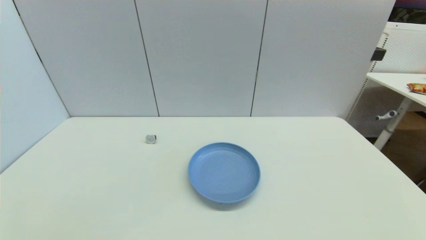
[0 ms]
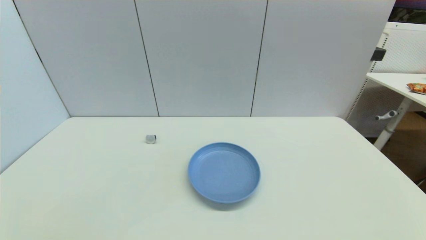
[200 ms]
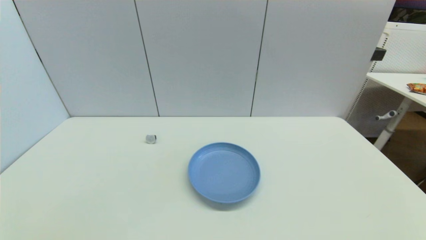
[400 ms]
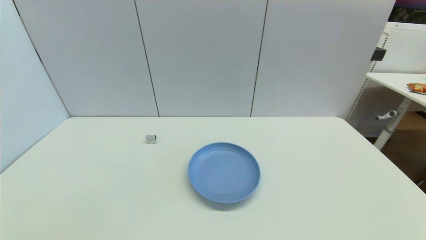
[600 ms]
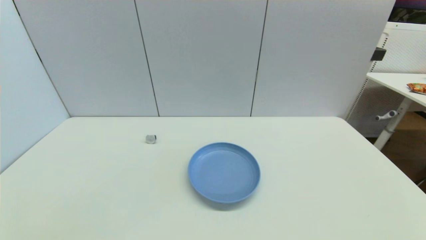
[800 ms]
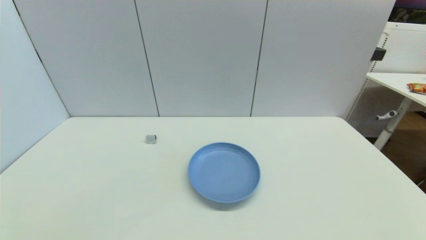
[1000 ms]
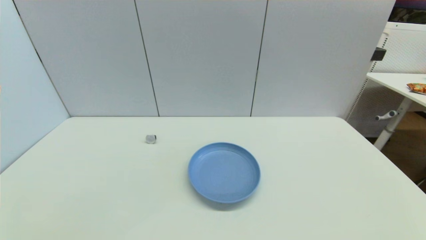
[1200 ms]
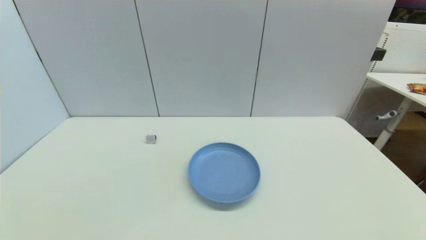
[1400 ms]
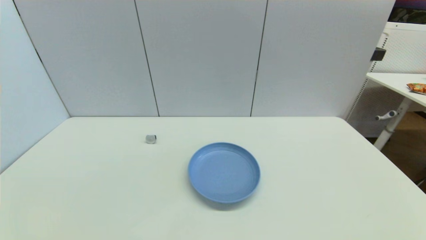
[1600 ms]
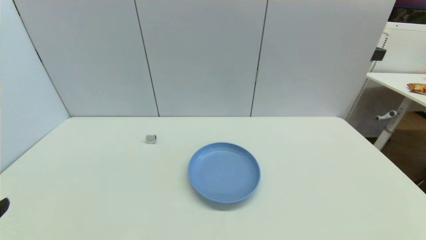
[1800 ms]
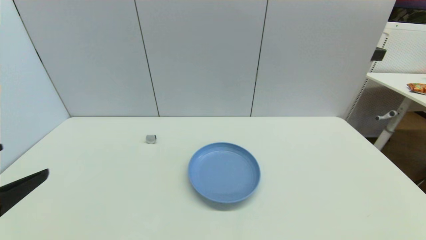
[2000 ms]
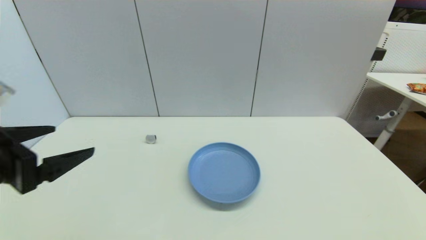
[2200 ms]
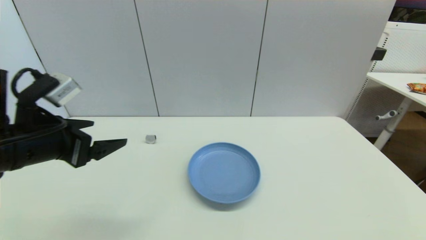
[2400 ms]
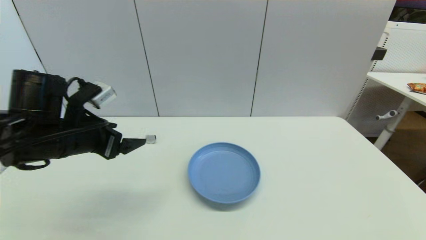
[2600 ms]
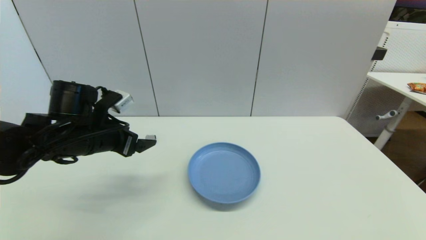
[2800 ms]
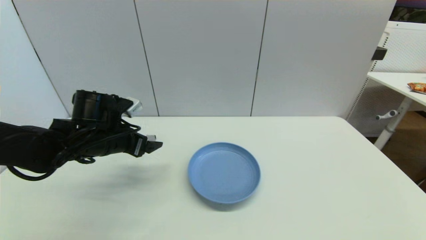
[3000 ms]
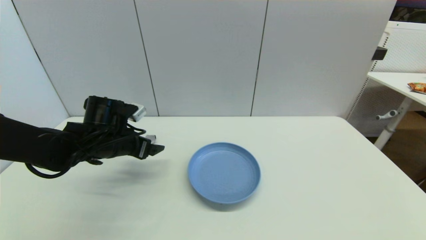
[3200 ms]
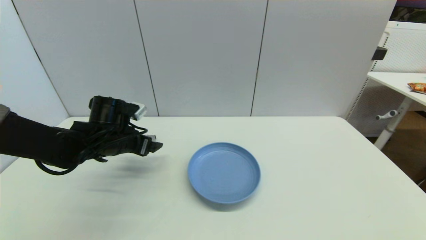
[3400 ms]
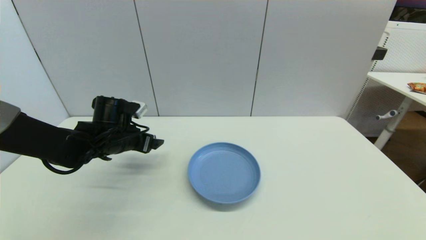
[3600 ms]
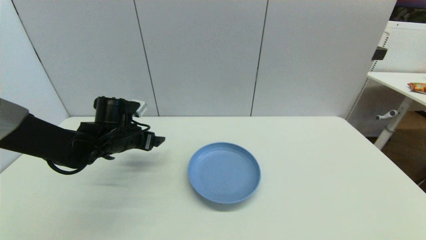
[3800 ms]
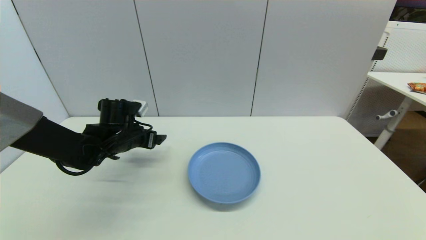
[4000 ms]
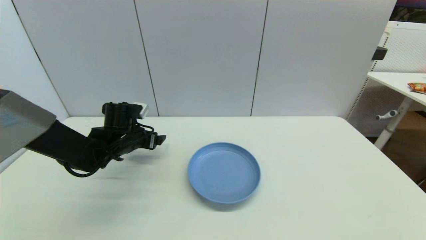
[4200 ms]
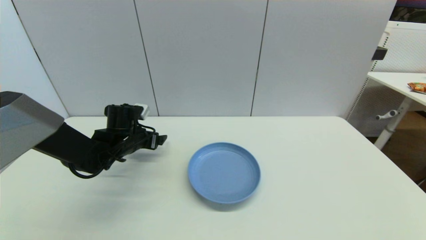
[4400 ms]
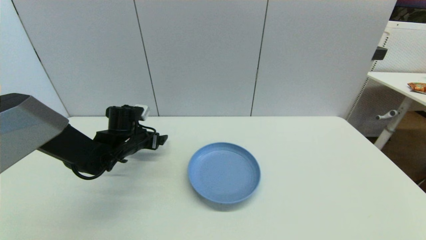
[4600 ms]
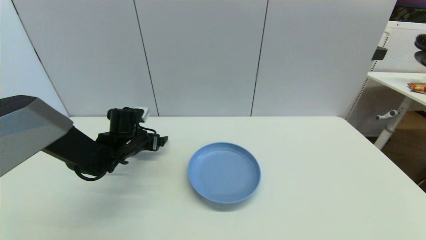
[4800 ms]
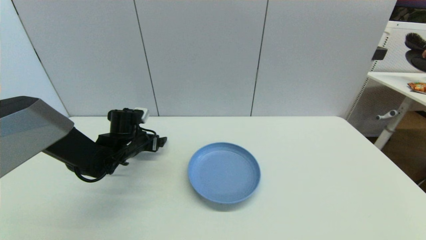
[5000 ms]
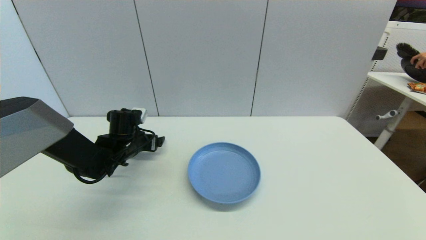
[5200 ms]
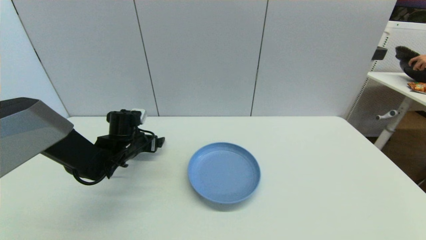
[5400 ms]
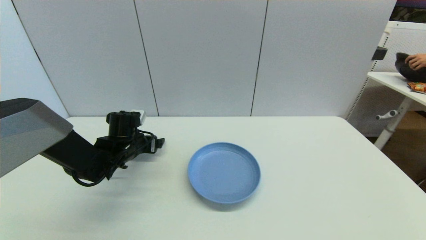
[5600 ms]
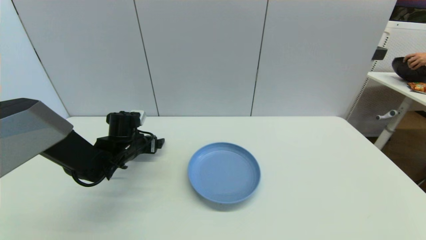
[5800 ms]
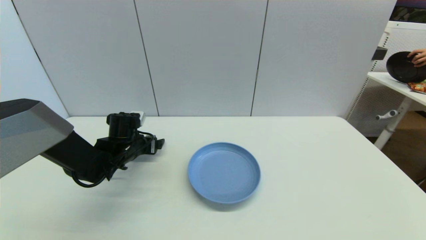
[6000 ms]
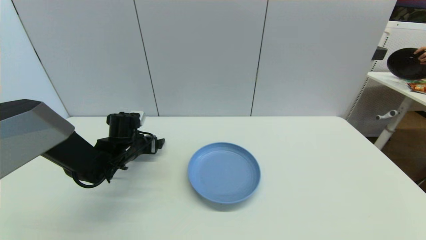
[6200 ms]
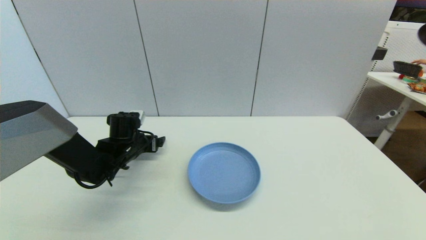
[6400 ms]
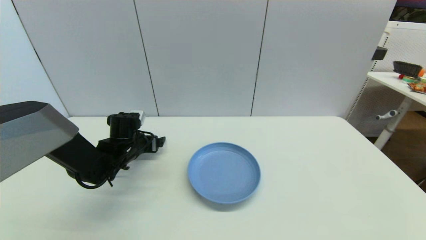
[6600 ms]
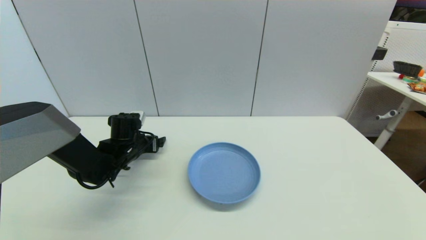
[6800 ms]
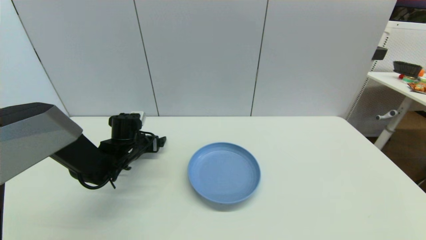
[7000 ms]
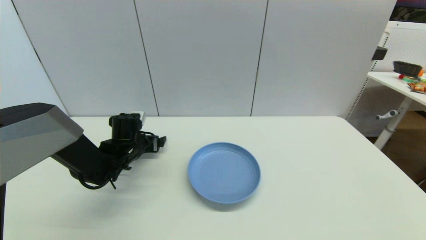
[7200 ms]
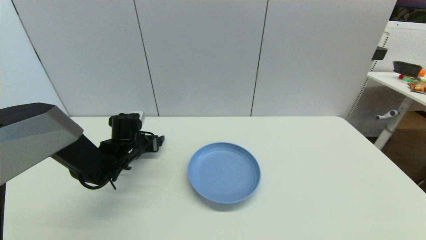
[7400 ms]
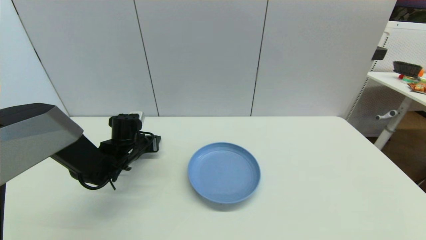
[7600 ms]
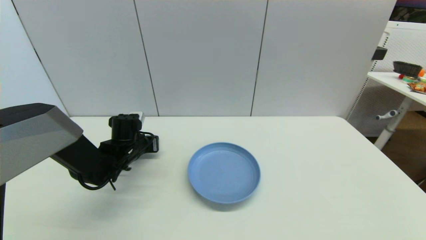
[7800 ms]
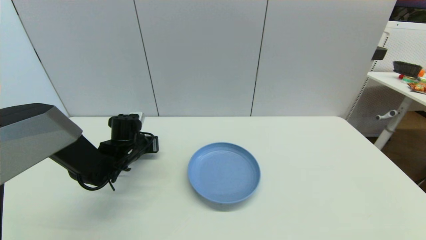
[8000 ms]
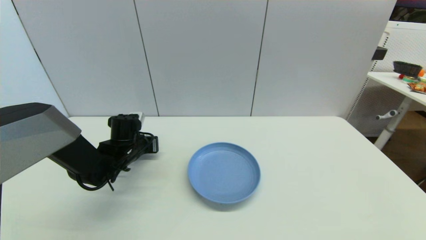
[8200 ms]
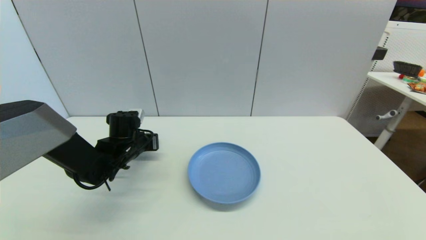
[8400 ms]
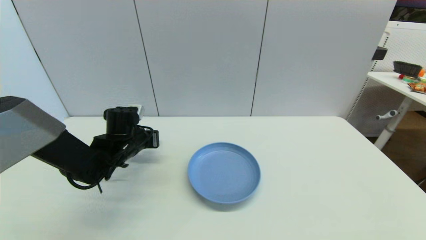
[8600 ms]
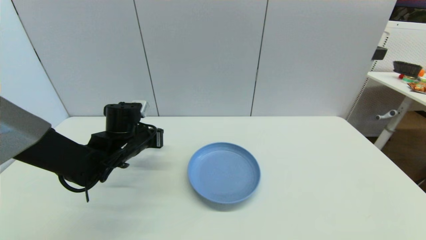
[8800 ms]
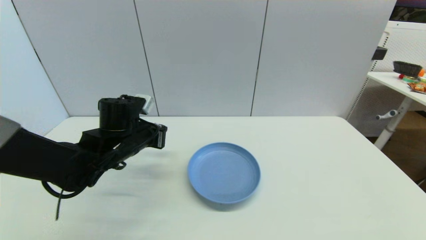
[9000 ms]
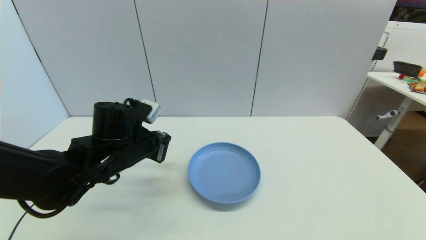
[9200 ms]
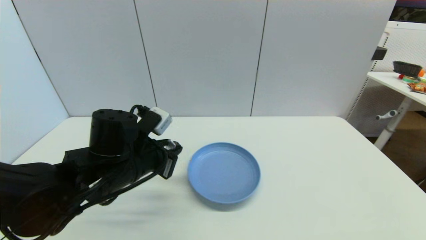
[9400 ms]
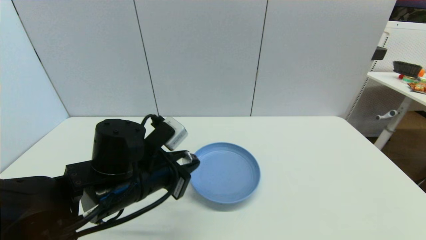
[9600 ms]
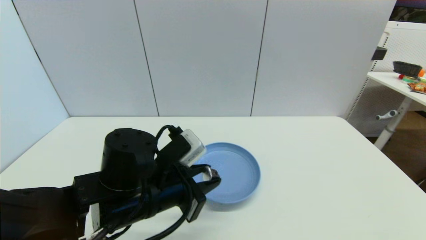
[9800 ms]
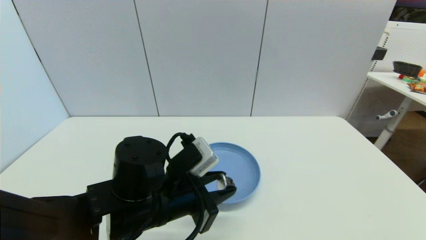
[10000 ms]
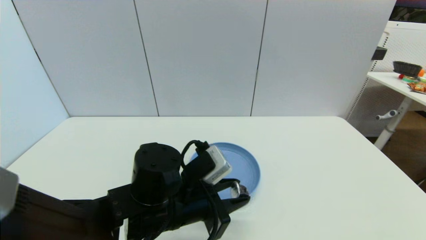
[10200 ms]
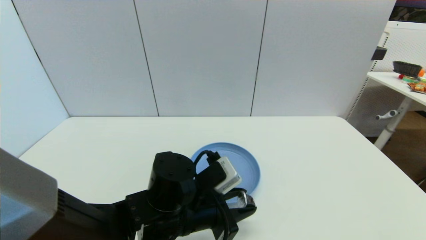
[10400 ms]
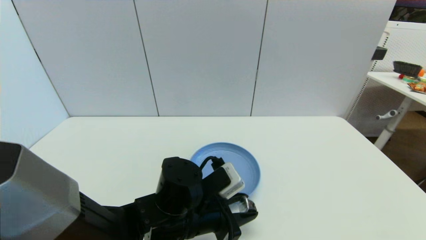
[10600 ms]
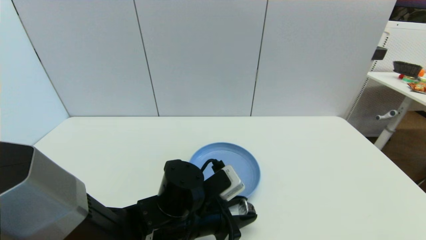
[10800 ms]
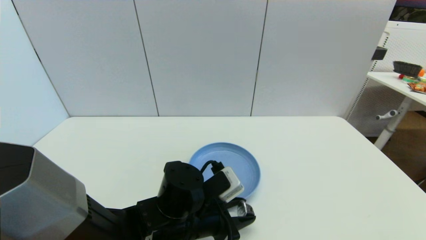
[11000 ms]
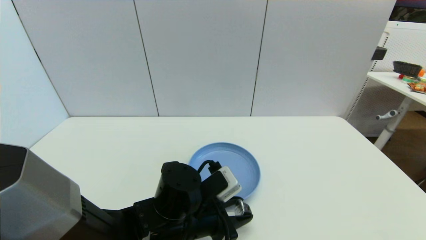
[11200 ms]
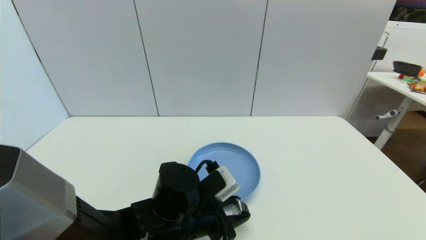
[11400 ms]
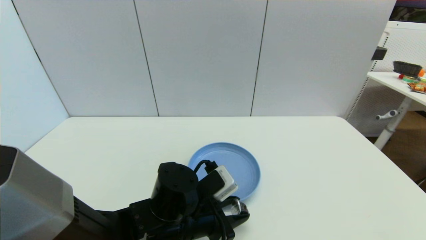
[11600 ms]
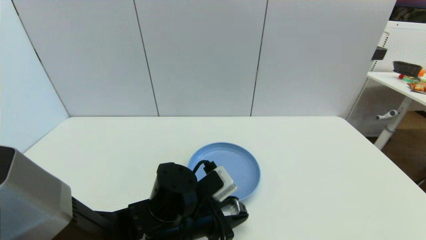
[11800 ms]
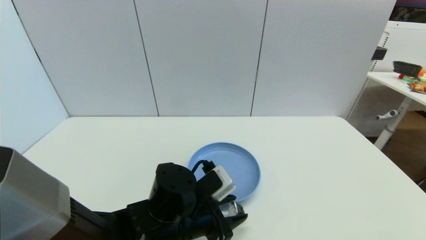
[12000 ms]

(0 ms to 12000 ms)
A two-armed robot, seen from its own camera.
Step, 1400 ms - 8000 ms: Grasp the coffee capsule with left gripper.
Step, 8200 ms - 12000 ms: Place the coffee capsule on the table with left gripper.
1600 ms - 3000 ms: The left gripper heads forward, covering roughly 35 cm.
3000 ms - 4400 ms: The left gripper is displaced forward and downward by roughly 10 cm.
4400 ms - 6000 ms: There are only small adjustments of the grippers.
6000 ms - 7600 ms: The left gripper closes up.
7600 ms - 9000 ms: The left gripper shifts approximately 10 cm upward and backward, and closes its fingers.
9000 ms - 10400 ms: The left gripper shifts approximately 15 cm to the right and backward.
10400 ms - 12000 ms: The grippers stay close to where they were, moving slightly.

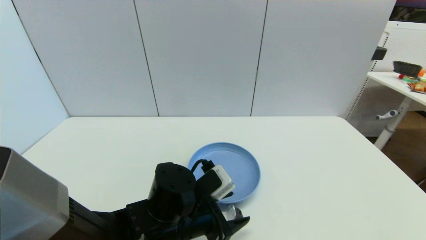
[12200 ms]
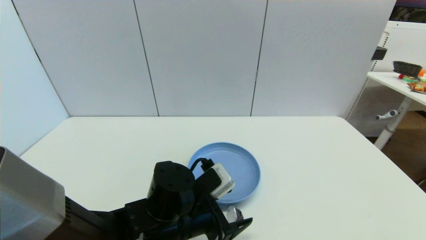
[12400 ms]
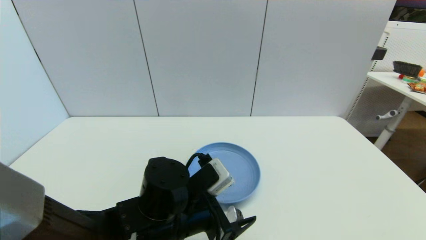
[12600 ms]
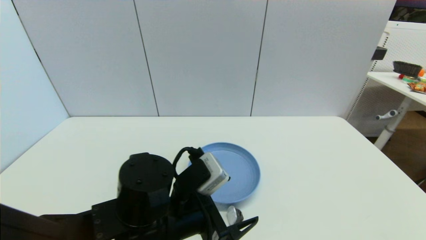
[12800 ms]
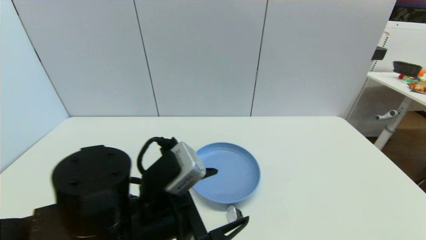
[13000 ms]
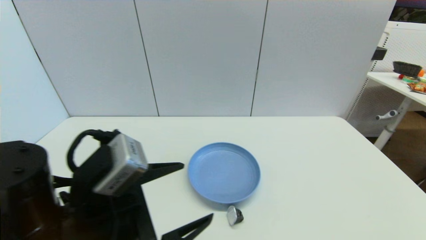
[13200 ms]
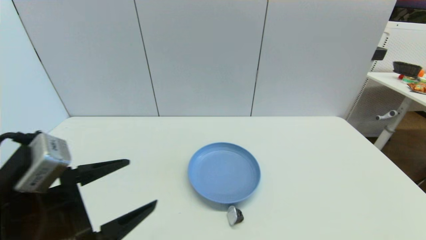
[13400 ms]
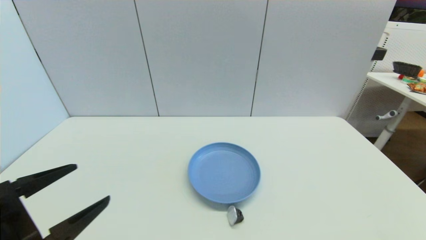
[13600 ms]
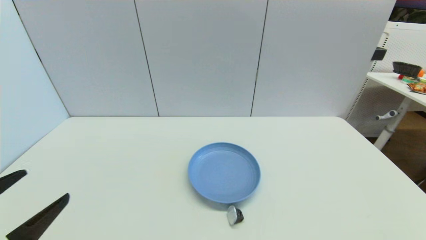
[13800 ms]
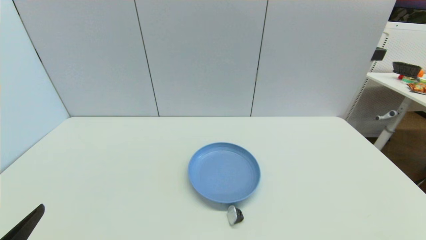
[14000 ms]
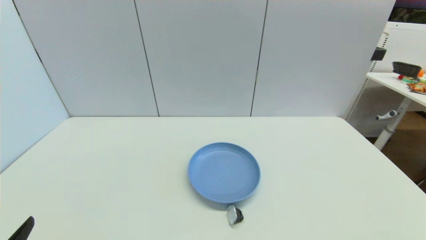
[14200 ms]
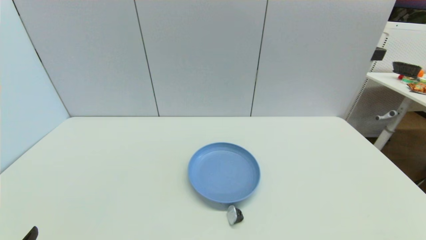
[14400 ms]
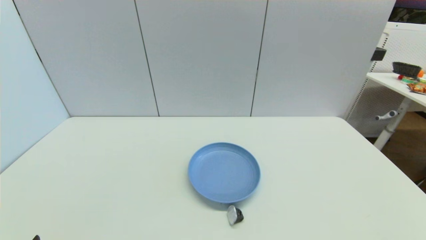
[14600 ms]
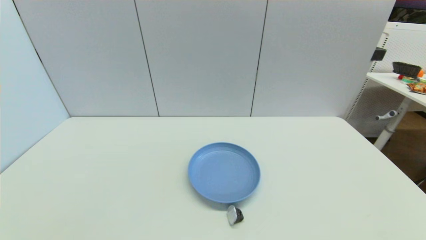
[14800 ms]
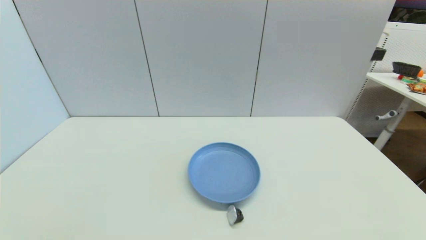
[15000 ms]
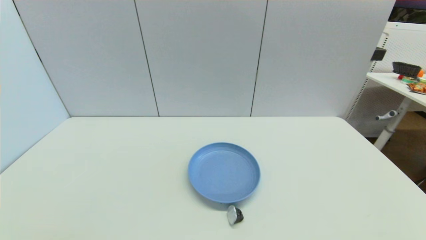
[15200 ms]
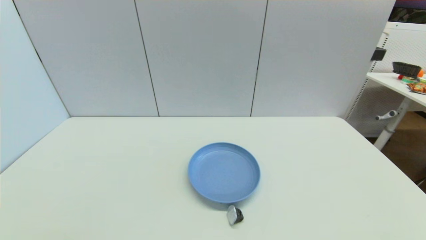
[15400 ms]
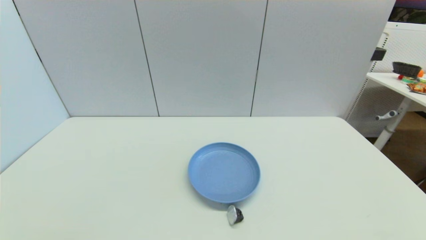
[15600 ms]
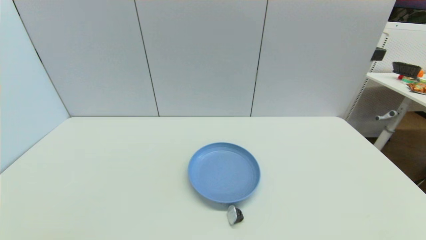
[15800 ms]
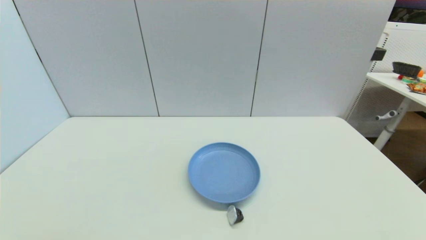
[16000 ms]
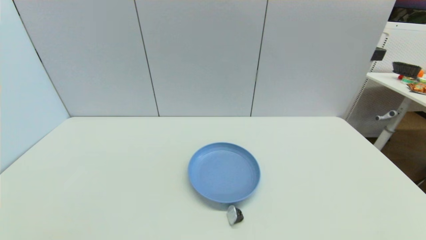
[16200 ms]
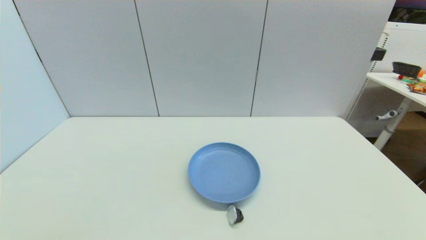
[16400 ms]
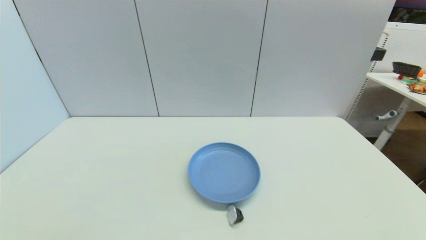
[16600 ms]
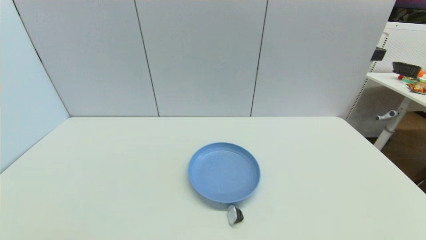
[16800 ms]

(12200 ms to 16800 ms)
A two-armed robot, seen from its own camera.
12200 ms - 13800 ms: The left gripper shifts approximately 25 cm to the left and backward, and opens.
13800 ms - 15200 ms: The left gripper moves downward and backward, roughly 10 cm.
15200 ms - 16800 ms: Both grippers stay put.
